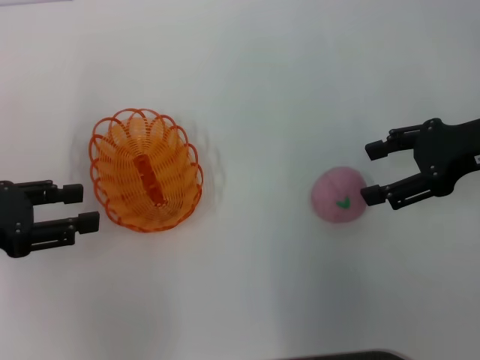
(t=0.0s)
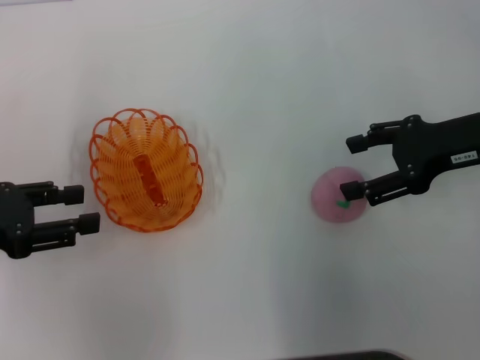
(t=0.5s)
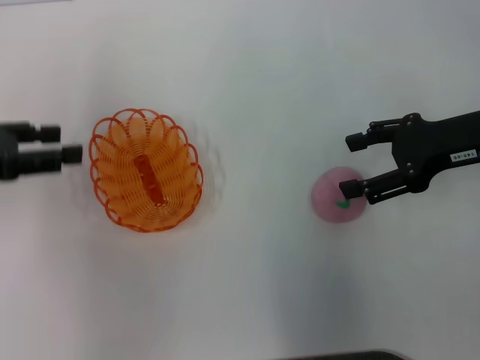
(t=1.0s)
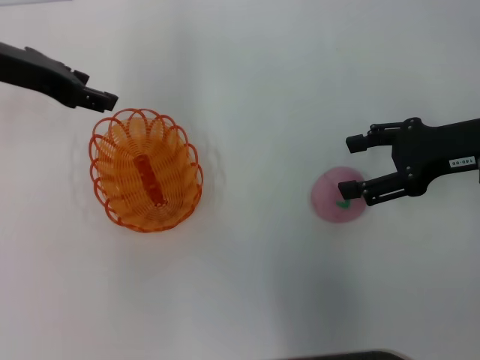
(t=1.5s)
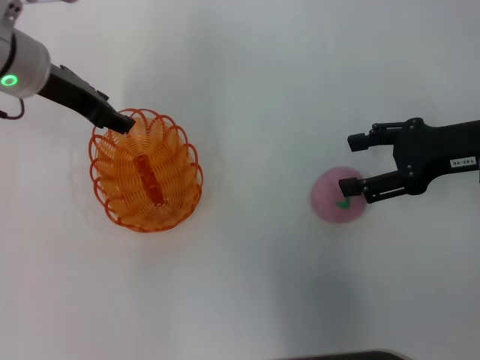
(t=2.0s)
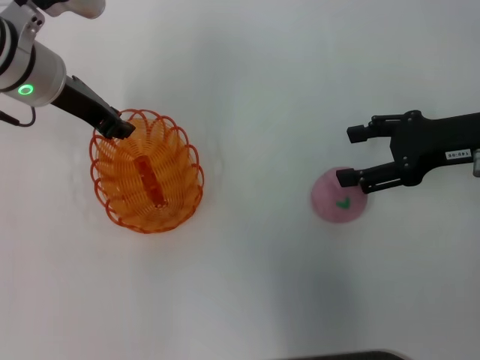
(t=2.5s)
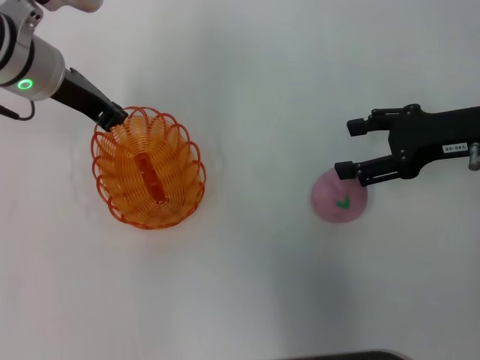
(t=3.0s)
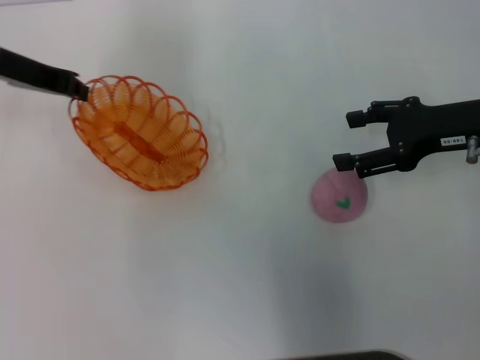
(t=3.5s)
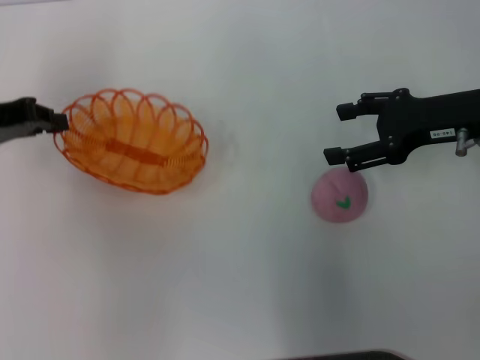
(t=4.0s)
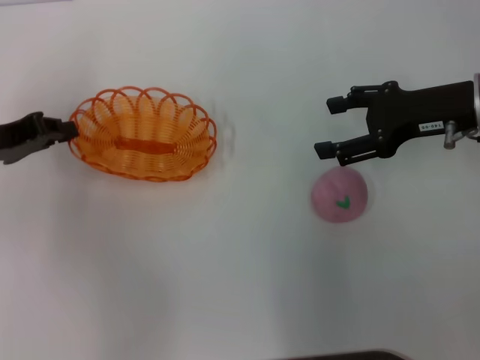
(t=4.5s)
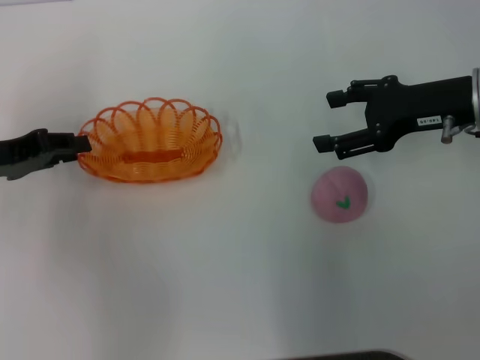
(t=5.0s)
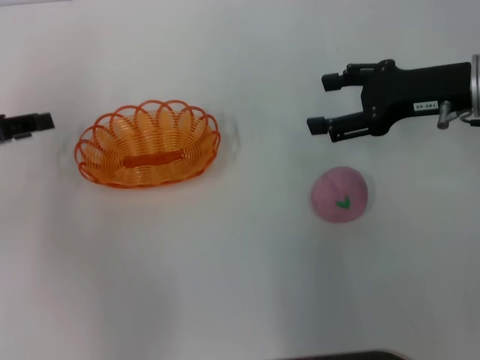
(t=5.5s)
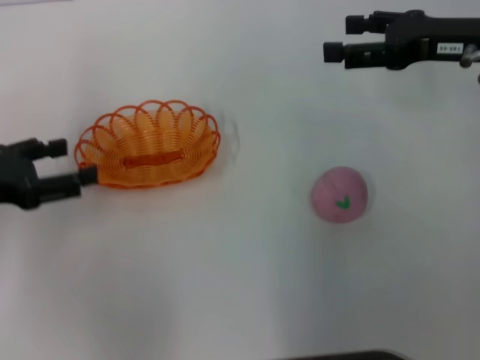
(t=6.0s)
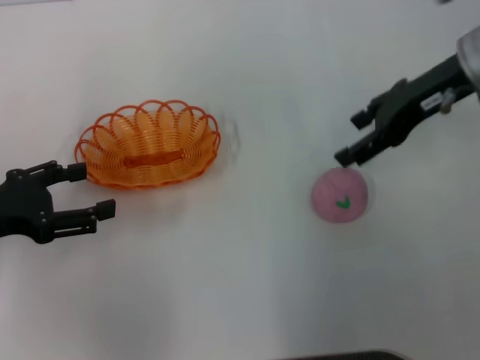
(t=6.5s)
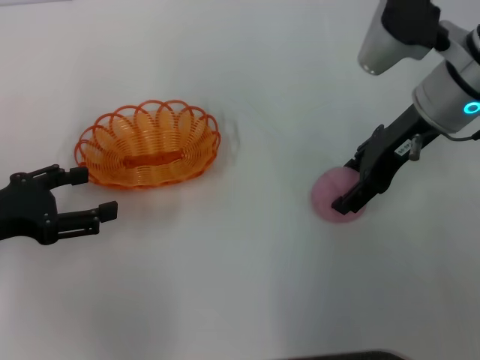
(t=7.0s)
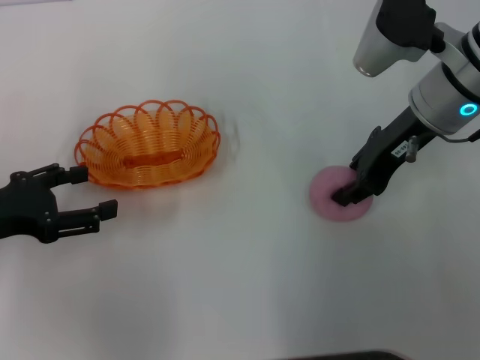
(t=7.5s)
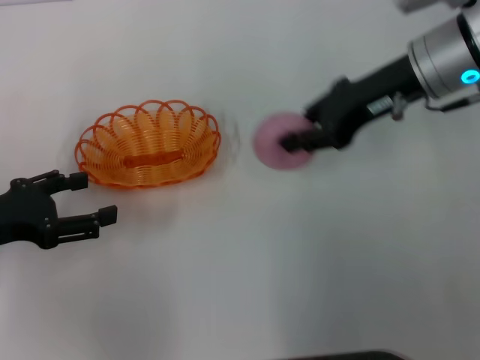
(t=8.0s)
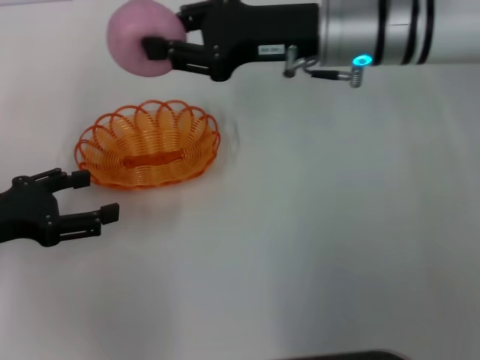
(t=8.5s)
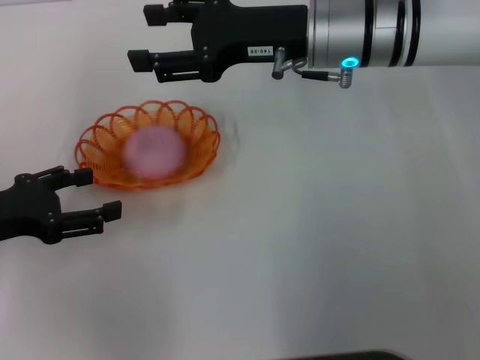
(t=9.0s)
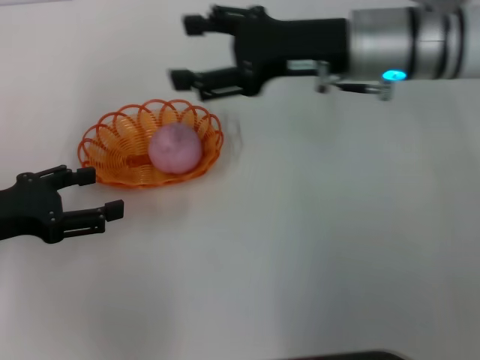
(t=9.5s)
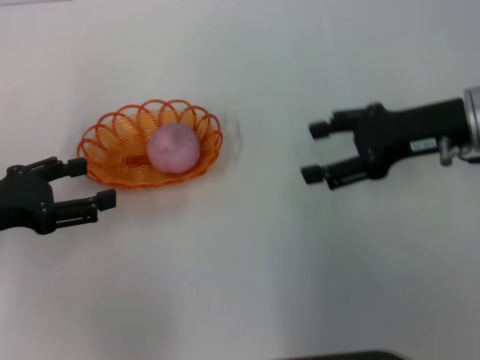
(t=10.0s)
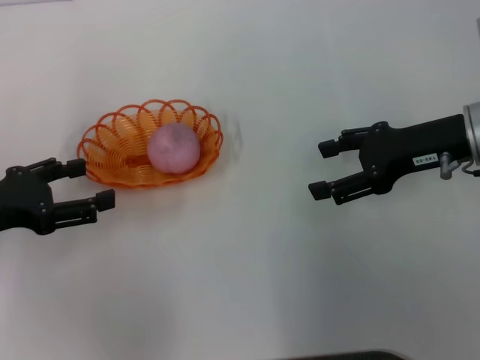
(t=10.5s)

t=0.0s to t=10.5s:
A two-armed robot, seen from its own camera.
Step, t=0.0s to t=3.5s: Pick up the basket with the left gripper.
Step, t=4.0s to t=5.5s: Place the basket in the center of view with the left gripper.
Step, t=6.0s to t=8.0s: Pick up the peach with the right gripper.
Step, t=8.5s to t=9.5s: Place the peach into the basket with the right gripper.
t=0.0s to t=2.0s: The left gripper travels forward and to the right by approximately 20 cm.
t=2.0s to t=4.0s: The left gripper is displaced to the left and backward by approximately 10 cm, and closes its fingers.
t=4.0s to t=6.5s: The right gripper shifts approximately 5 cm upward; the left gripper moves backward, approximately 10 cm, and opens up.
t=6.5s to t=8.5s: The right gripper heads to the left, covering approximately 10 cm, and closes up.
t=8.5s to t=10.5s: The right gripper shifts some 15 cm to the right and backward, and opens up.
